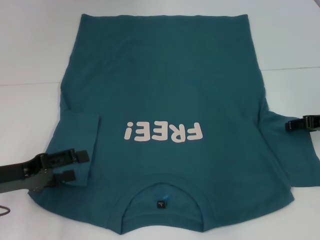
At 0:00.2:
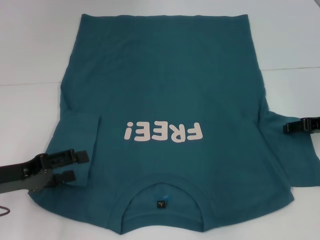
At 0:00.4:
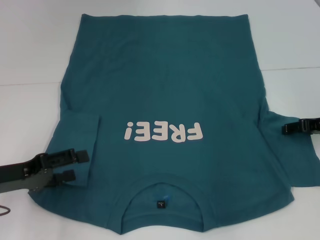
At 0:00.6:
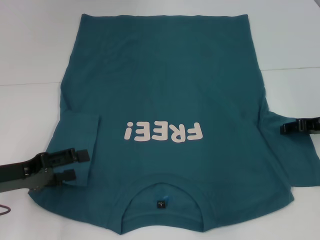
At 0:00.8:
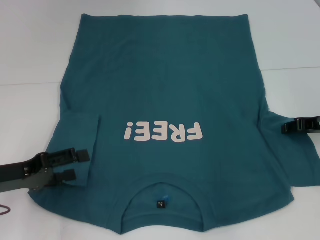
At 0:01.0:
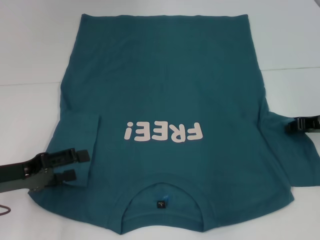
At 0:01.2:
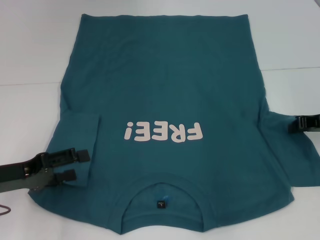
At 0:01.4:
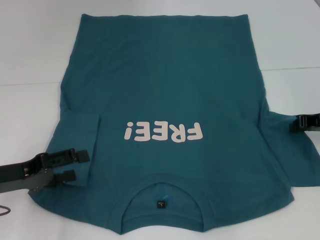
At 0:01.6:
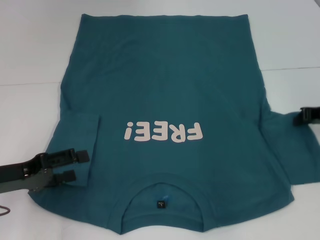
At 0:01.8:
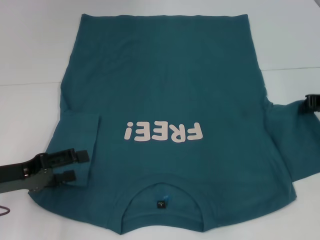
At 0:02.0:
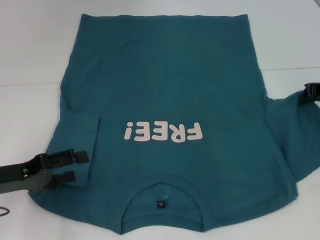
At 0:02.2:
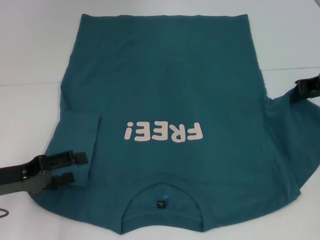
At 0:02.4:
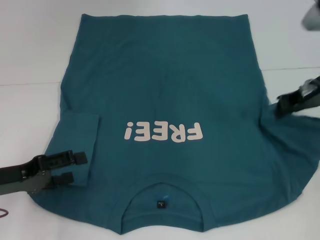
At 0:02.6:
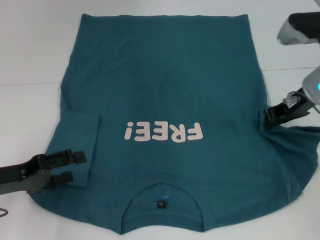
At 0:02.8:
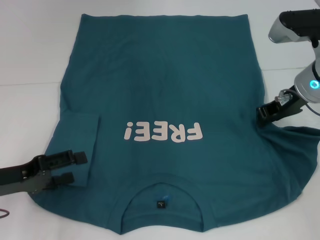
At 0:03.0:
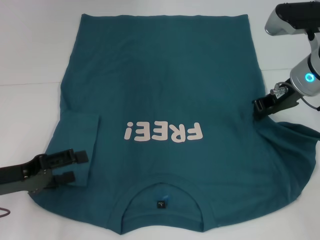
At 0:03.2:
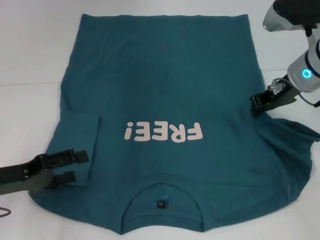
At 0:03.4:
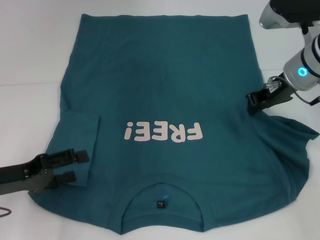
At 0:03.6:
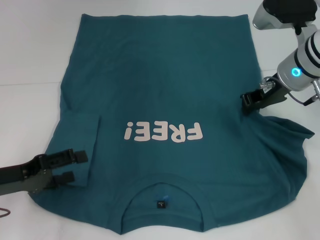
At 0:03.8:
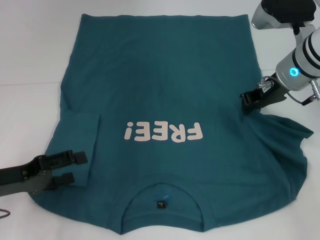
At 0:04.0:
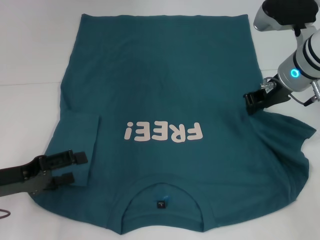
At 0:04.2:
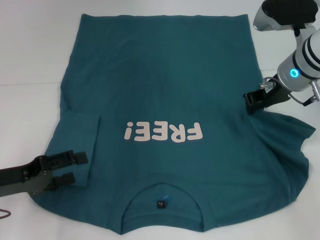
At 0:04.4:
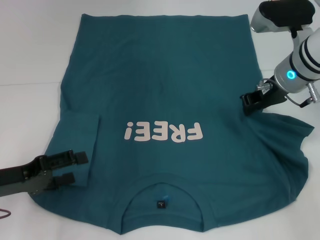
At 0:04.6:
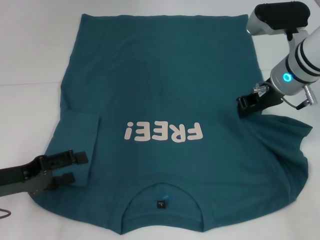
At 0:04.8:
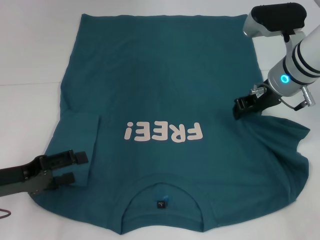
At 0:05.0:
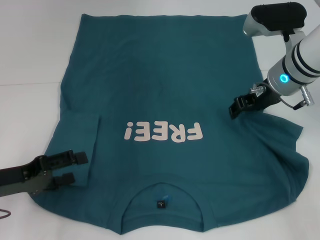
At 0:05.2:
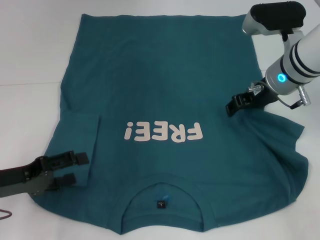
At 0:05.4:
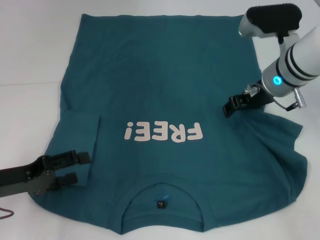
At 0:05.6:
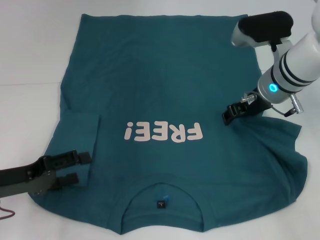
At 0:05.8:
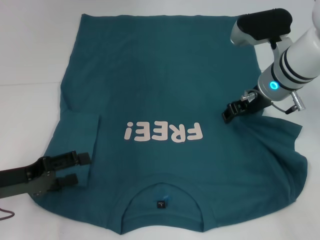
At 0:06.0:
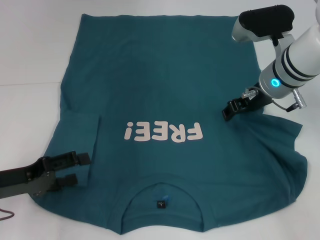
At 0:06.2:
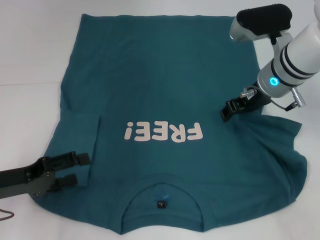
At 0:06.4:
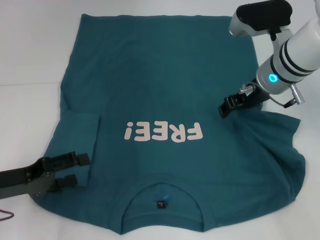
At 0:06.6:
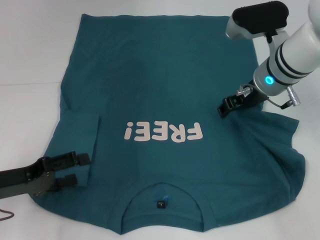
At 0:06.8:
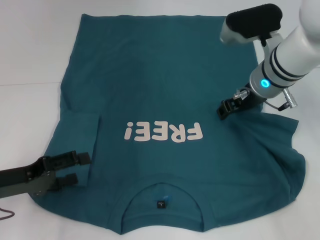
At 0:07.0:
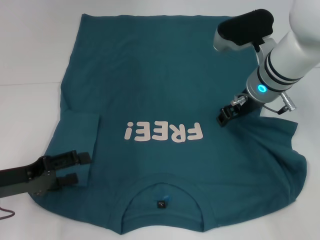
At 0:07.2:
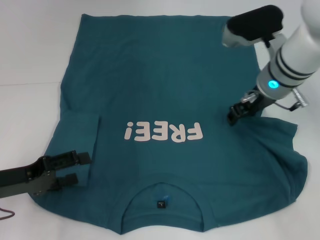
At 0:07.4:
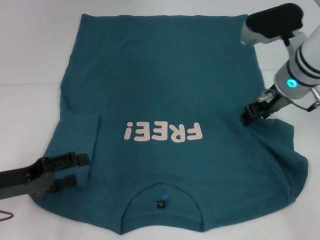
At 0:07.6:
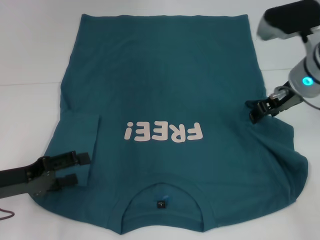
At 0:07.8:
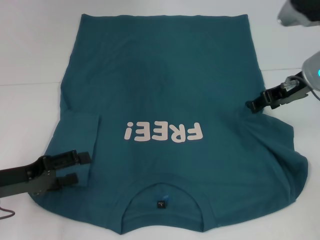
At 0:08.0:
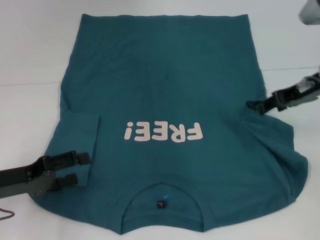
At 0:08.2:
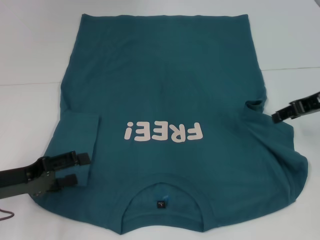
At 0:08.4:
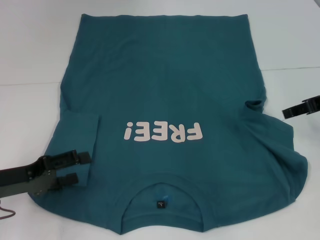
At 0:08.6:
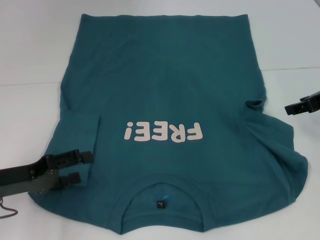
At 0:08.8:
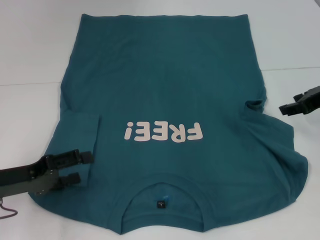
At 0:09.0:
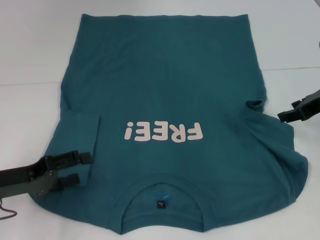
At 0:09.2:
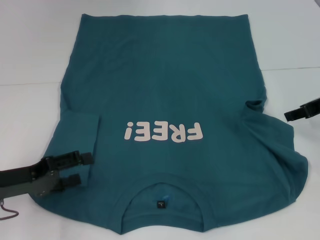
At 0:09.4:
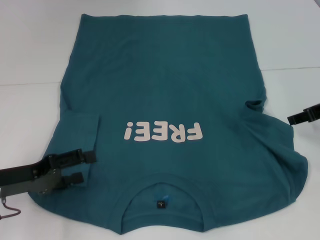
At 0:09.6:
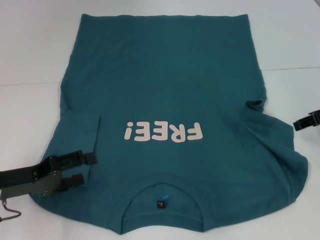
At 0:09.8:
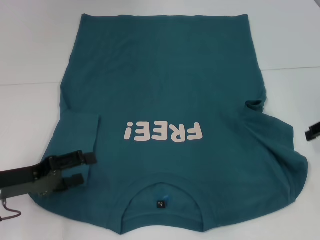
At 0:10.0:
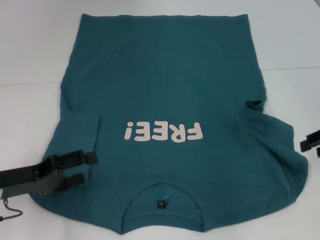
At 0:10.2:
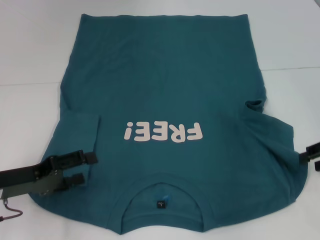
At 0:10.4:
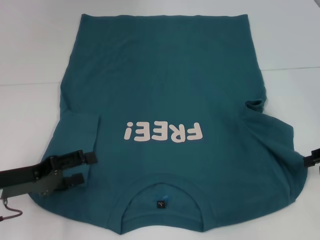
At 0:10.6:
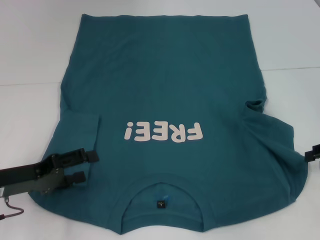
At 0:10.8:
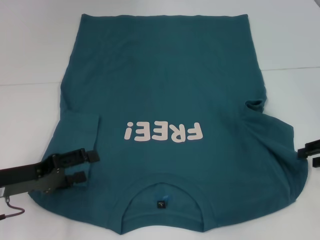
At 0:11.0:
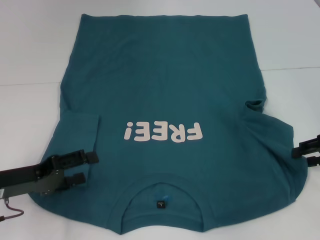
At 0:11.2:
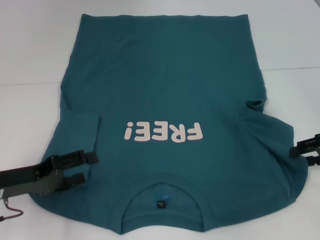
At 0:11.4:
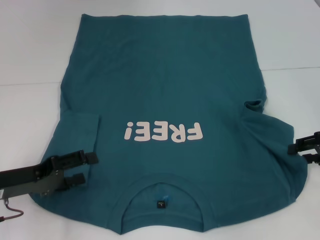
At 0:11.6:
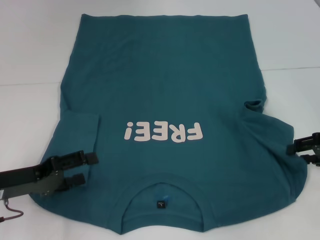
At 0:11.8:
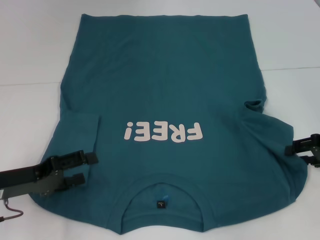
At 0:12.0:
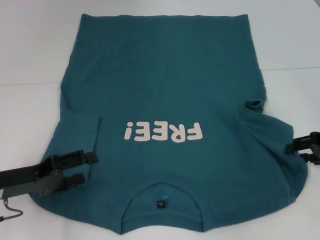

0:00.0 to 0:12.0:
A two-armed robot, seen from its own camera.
0:00.0 to 0:01.6: The right gripper closes its fingers.
0:01.6 to 0:03.0: The right gripper goes some 10 cm to the left and upward.
0:03.0 to 0:04.4: The grippers move only a little.
0:04.4 to 0:06.0: The right gripper opens up.
0:06.0 to 0:07.6: The grippers move only a little.
0:07.6 to 0:09.0: The right gripper moves to the right, some 10 cm.
0:09.0 to 0:10.4: The right gripper heads backward and to the right, covering roughly 10 cm.
0:10.4 to 0:12.0: There are only small adjustments of the grippers.

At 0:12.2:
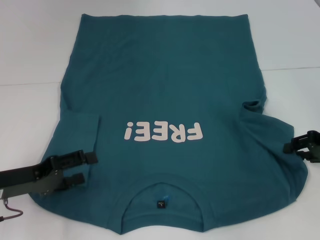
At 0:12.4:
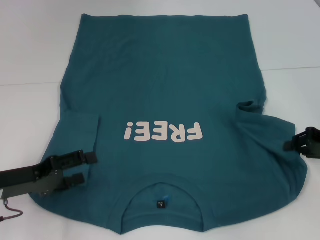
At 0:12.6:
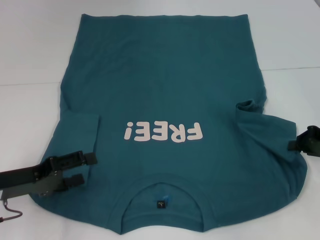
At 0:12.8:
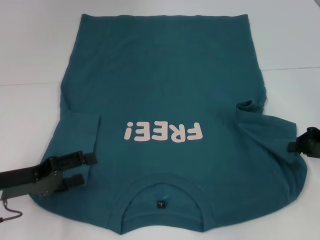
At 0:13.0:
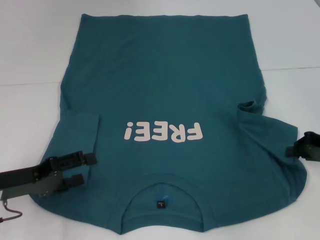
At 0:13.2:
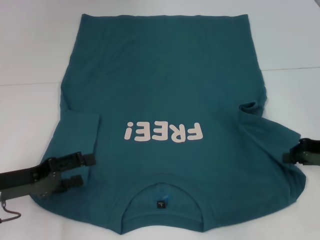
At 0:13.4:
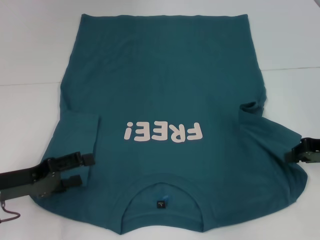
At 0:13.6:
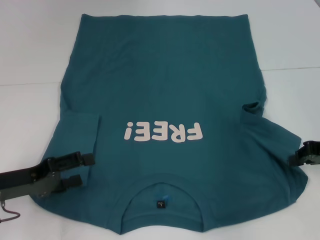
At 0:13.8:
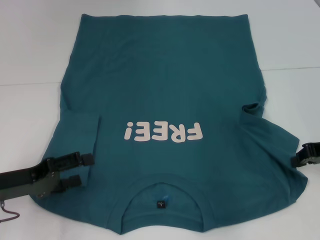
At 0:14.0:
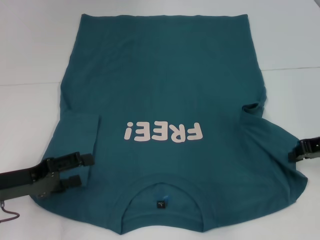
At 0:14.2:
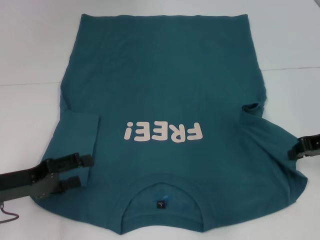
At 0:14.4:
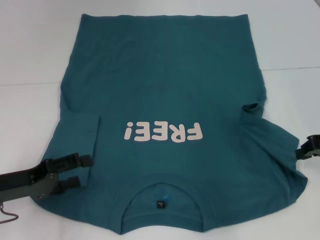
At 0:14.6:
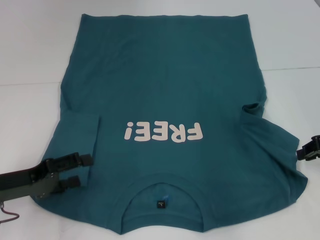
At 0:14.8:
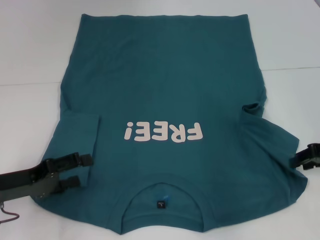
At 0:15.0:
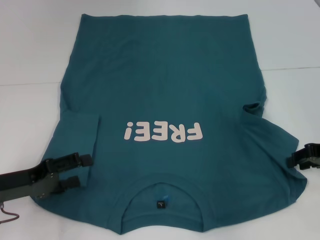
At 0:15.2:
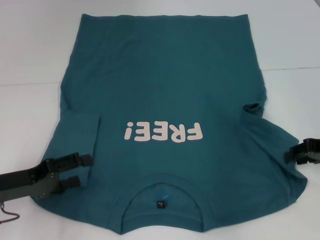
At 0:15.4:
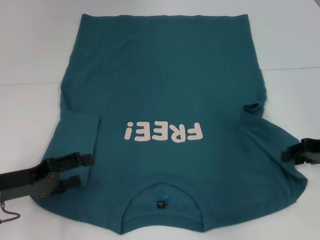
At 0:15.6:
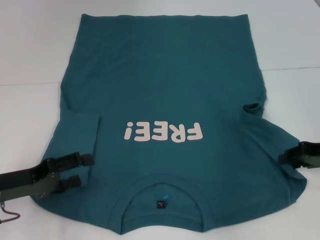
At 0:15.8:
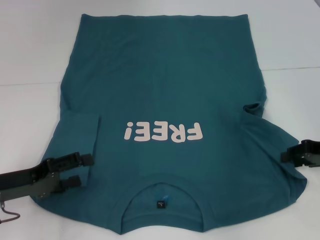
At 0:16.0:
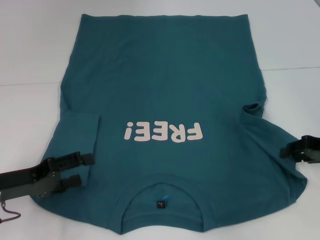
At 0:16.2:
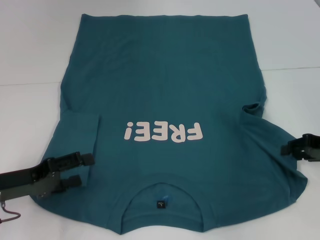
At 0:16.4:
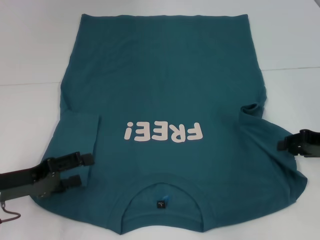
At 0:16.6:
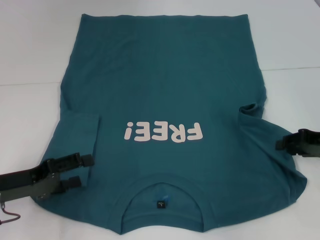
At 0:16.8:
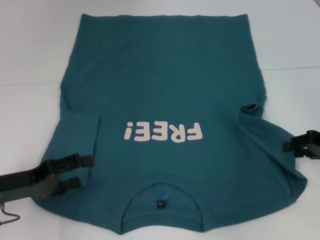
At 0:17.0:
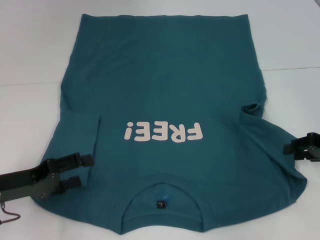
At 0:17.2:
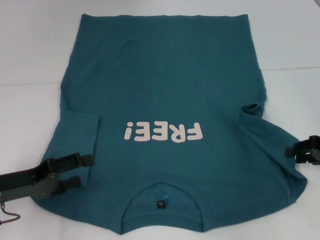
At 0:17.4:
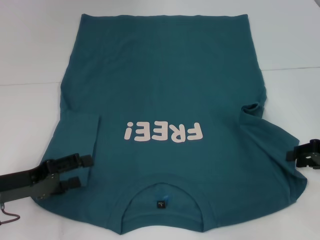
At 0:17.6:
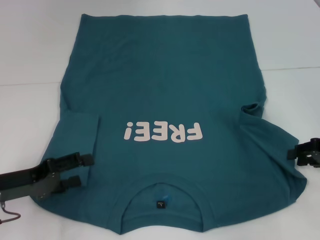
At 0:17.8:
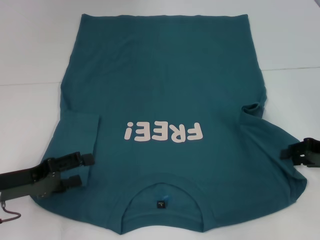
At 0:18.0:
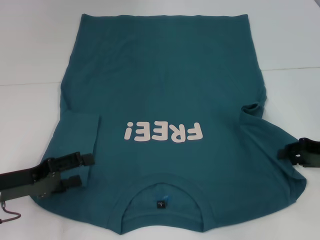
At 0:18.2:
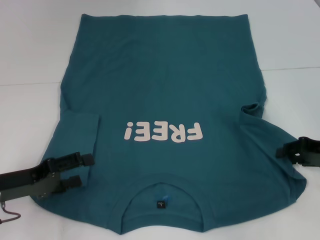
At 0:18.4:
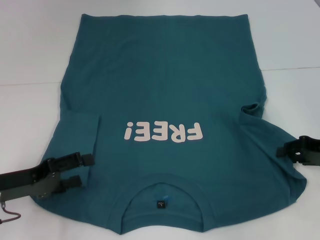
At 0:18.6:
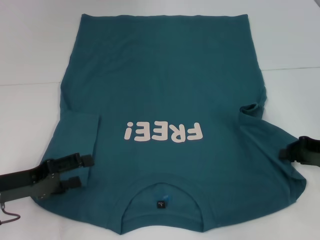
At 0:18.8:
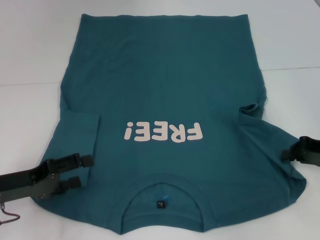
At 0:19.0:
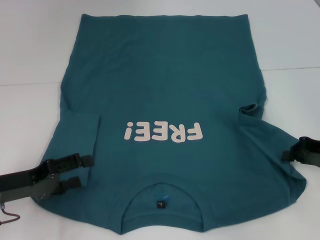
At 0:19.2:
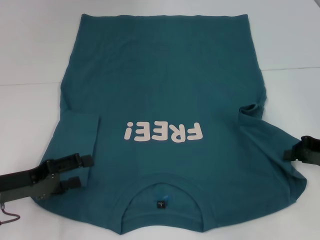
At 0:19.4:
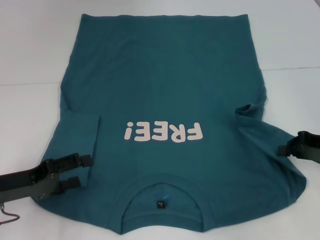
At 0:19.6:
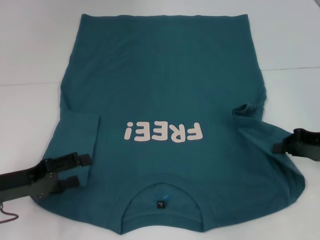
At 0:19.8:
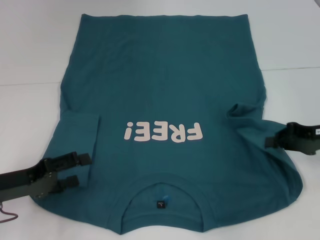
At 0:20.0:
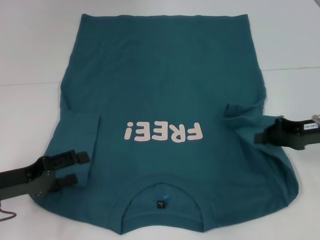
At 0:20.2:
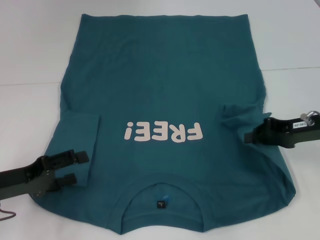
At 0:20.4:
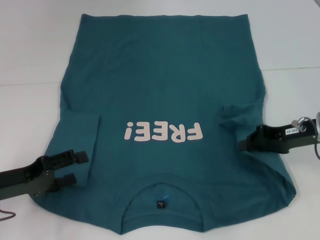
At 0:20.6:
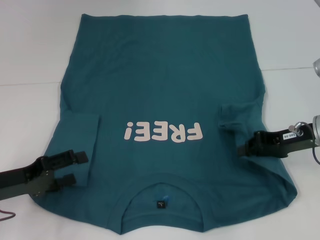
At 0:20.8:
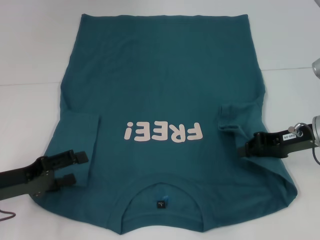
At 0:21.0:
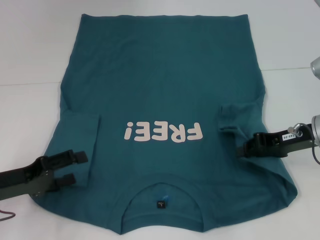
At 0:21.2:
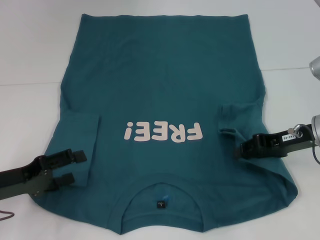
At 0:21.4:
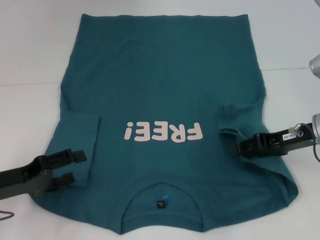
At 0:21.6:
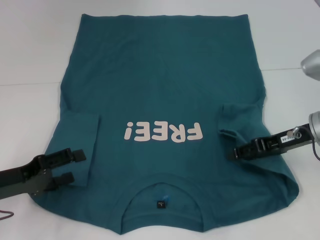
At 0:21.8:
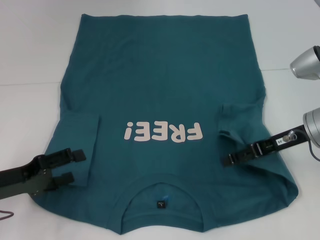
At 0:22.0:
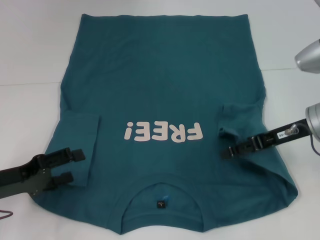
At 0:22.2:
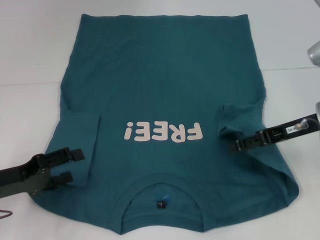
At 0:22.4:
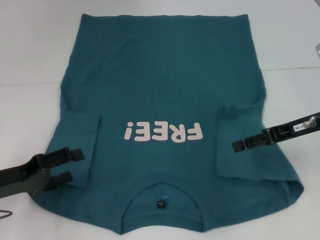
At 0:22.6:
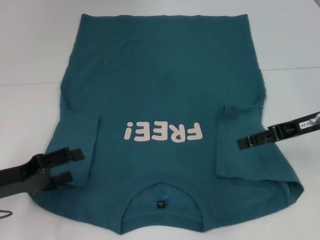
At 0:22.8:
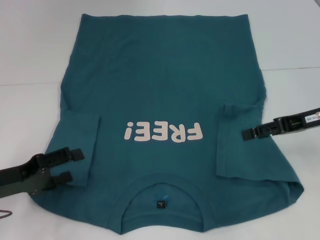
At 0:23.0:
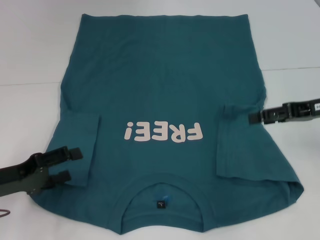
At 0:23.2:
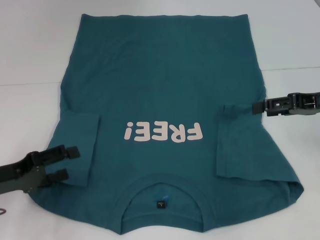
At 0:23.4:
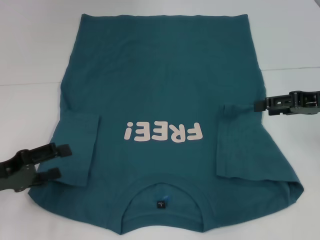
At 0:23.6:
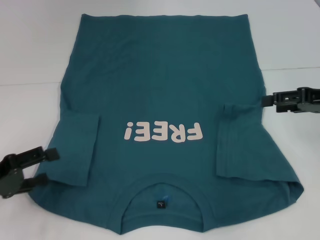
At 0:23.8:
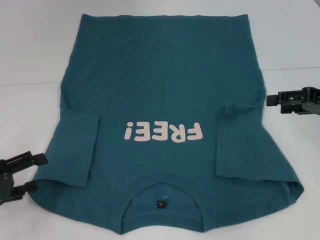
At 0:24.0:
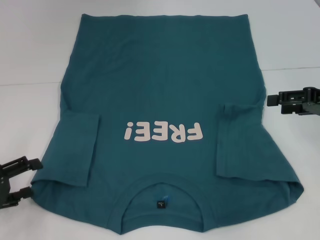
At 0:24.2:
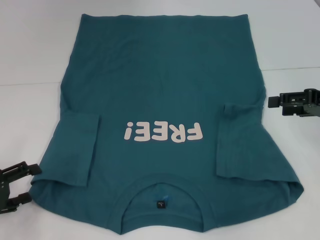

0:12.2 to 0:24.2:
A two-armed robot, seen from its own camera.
Step, 0:12.2 to 0:22.8: Fold the bottom right sleeve to the right.
0:12.2 to 0:13.8: The right gripper closes.
0:13.8 to 0:15.2: The right gripper opens its fingers.
0:15.2 to 0:18.2: The grippers make only small movements.
0:18.2 to 0:19.8: The right gripper closes up.
0:19.8 to 0:21.2: The right gripper ends up some 5 cm from where it was.
0:21.2 to 0:22.6: The right gripper opens its fingers.
0:22.6 to 0:24.2: The right gripper moves to the right, roughly 5 cm. The left gripper travels to the left by roughly 5 cm.
